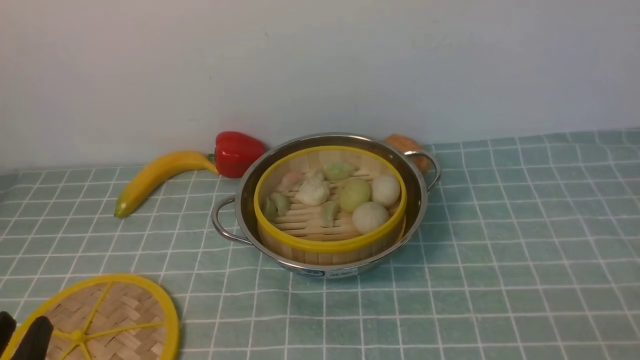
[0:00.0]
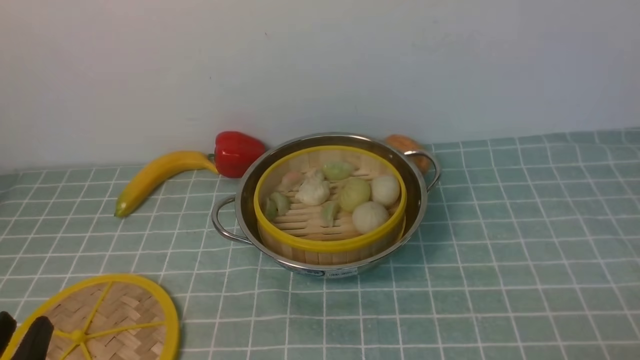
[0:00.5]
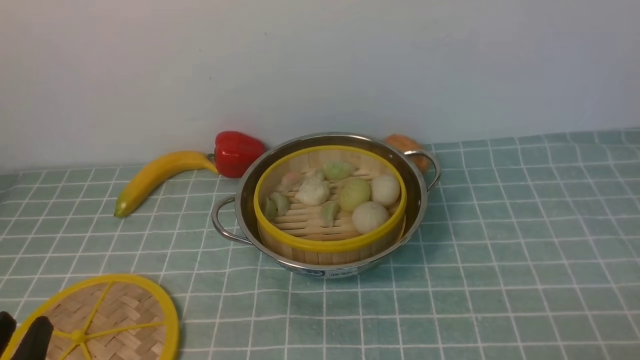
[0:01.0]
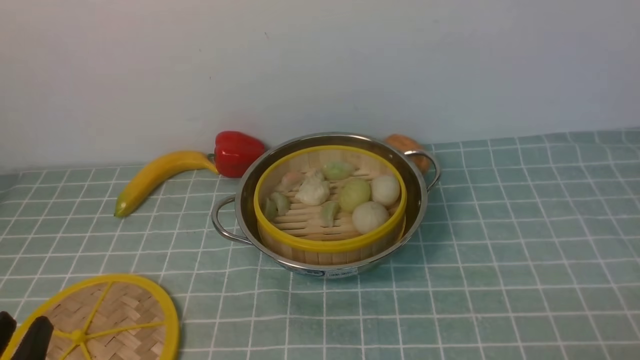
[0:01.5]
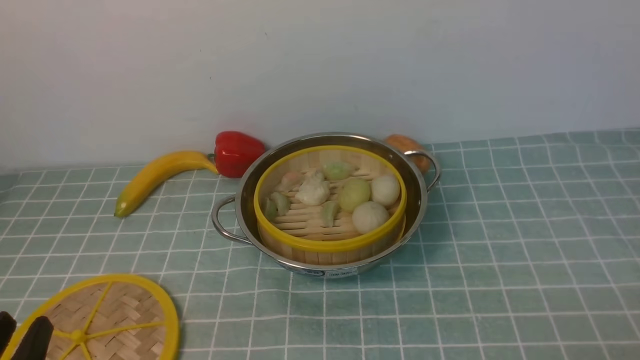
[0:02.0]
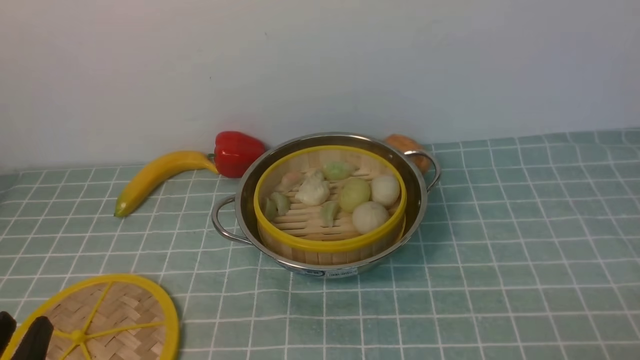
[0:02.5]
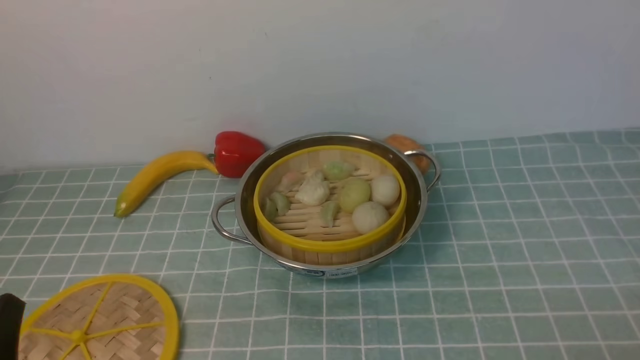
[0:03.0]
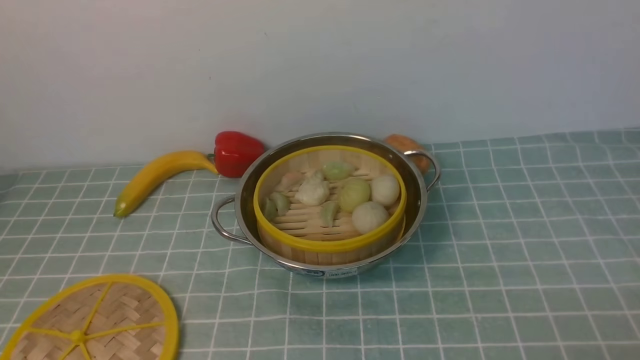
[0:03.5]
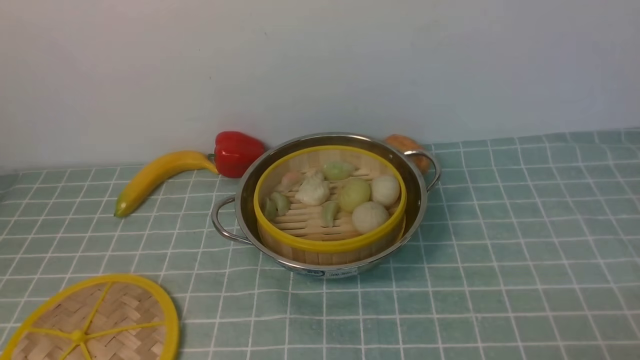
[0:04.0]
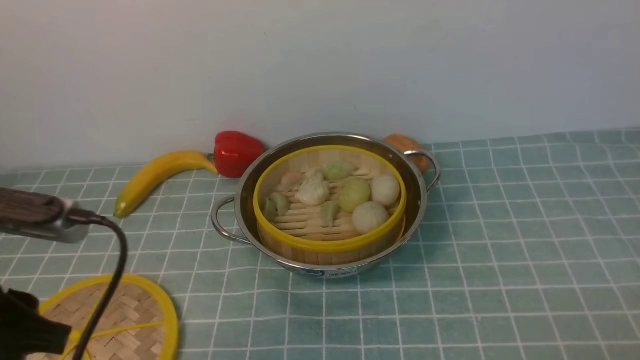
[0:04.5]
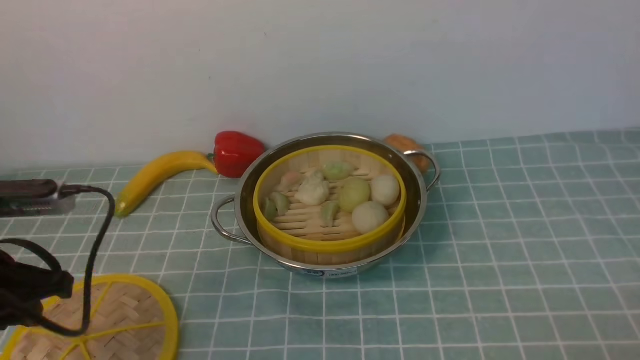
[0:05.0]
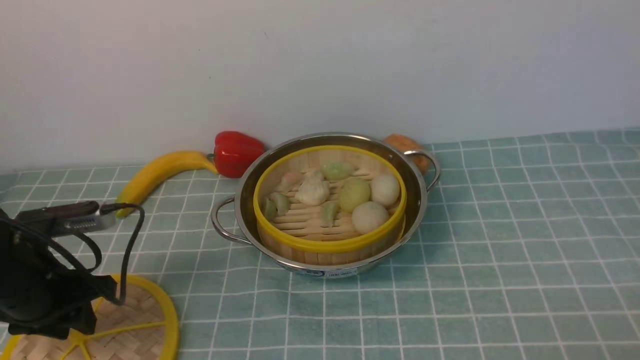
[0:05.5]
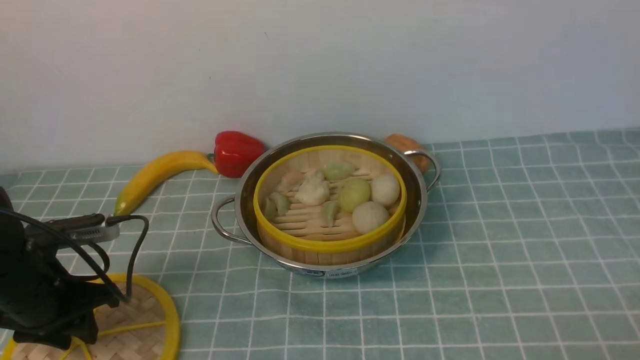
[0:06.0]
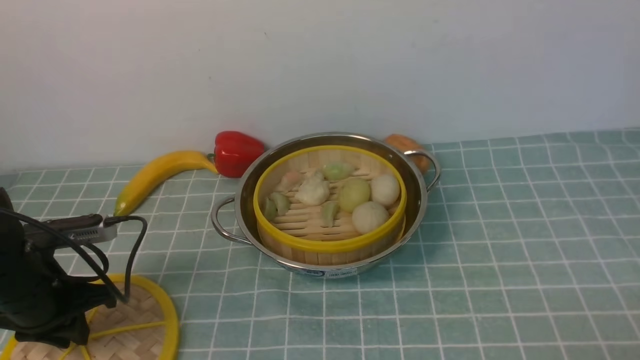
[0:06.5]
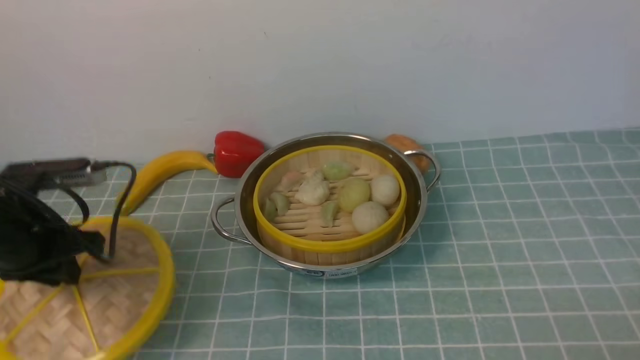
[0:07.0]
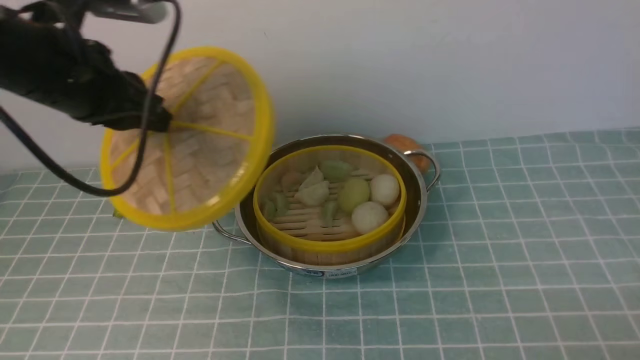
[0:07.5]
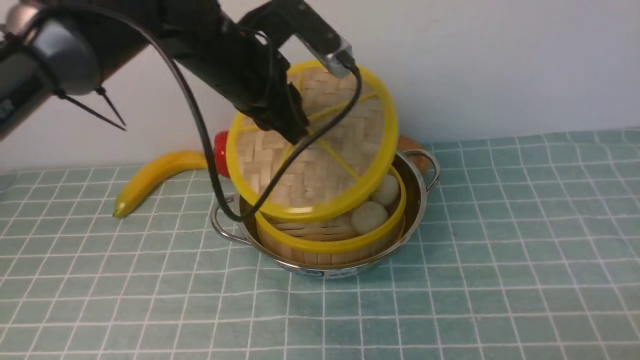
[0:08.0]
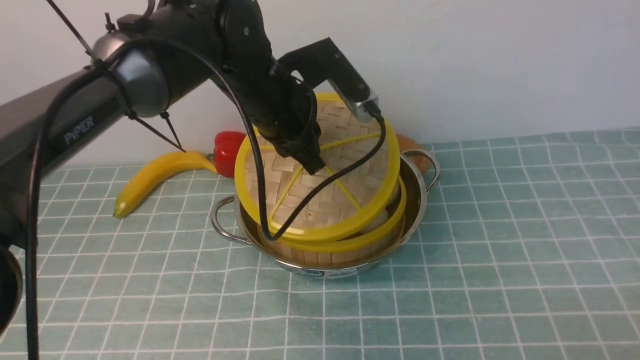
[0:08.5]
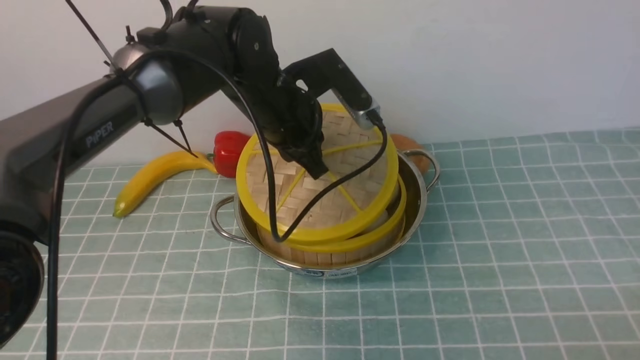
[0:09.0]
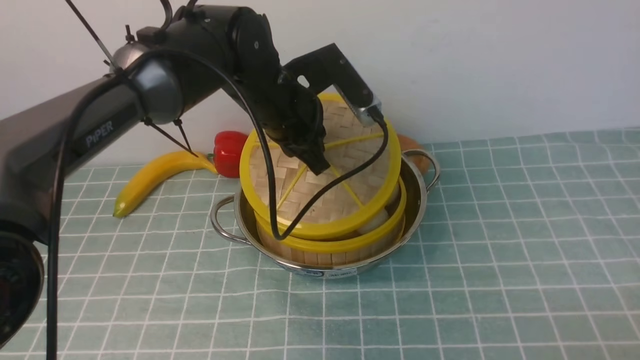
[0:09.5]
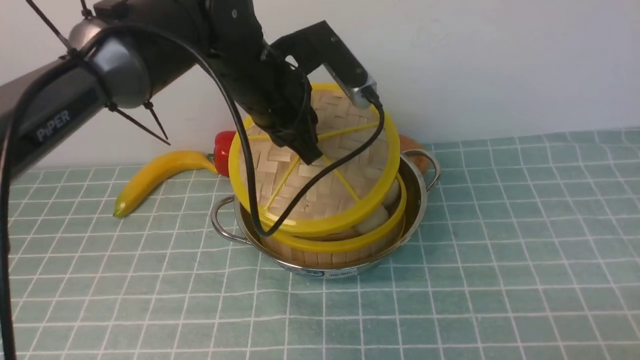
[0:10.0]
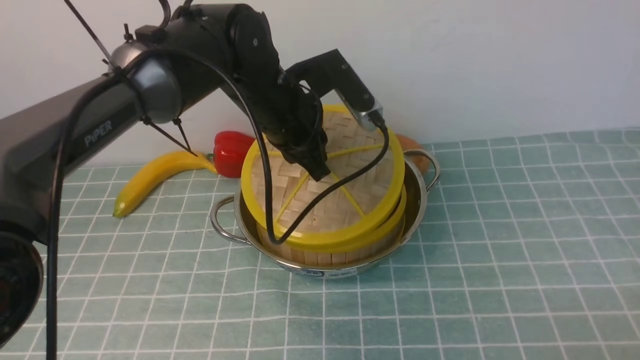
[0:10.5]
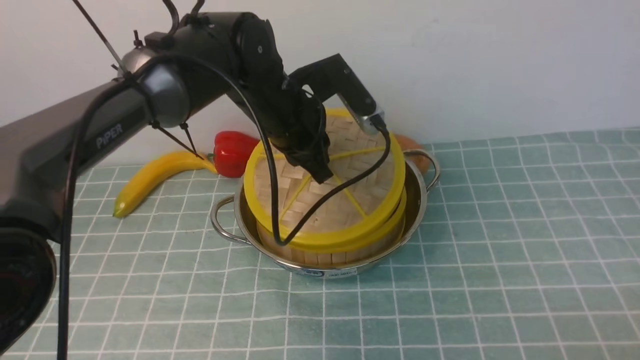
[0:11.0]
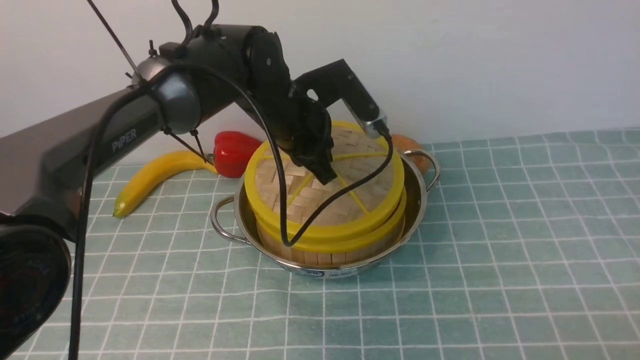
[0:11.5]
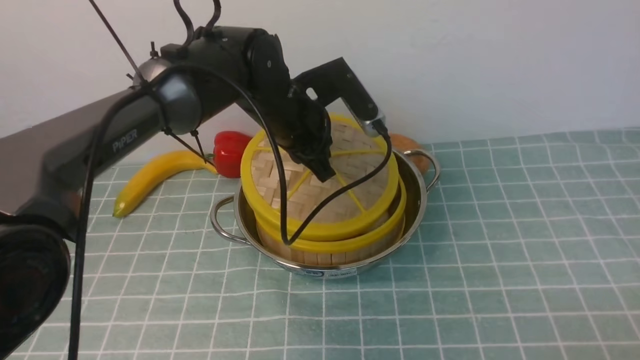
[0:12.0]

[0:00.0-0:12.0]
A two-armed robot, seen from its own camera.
Task of the whole recording: place the steamer in the pot on the blue tablecloth, and put the lid on the steamer.
Step, 0:00.0 to 0:07.0: use the left arm to lift the lid of the steamer.
0:02.0 to 0:04.0: The left gripper heads upward, covering approximately 15 cm.
0:04.0 to 0:06.0: The left gripper goes some 30 cm forward and downward.
0:06.0 to 0:08.0: The left gripper shifts about 30 cm to the right, upward and forward, and closes its fingers.
0:08.0 to 0:10.0: The left gripper shifts by some 5 cm.

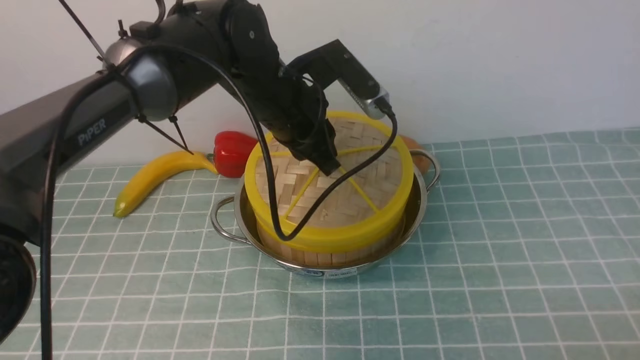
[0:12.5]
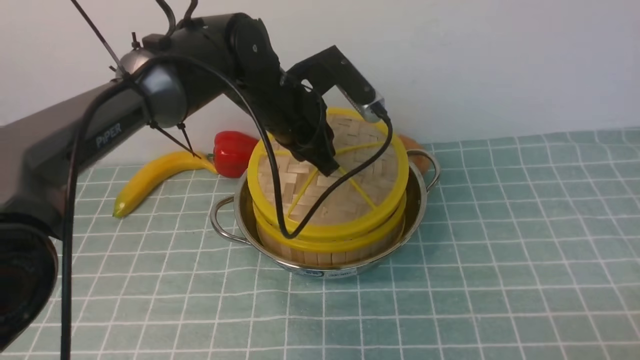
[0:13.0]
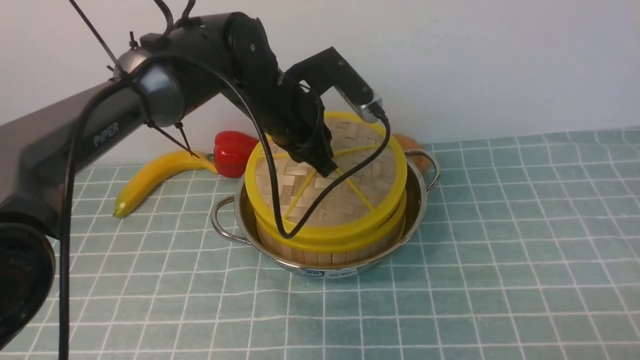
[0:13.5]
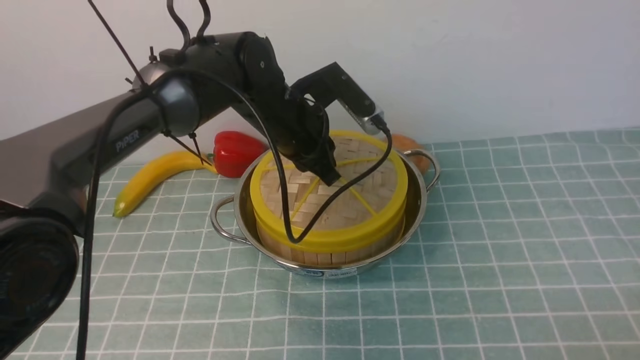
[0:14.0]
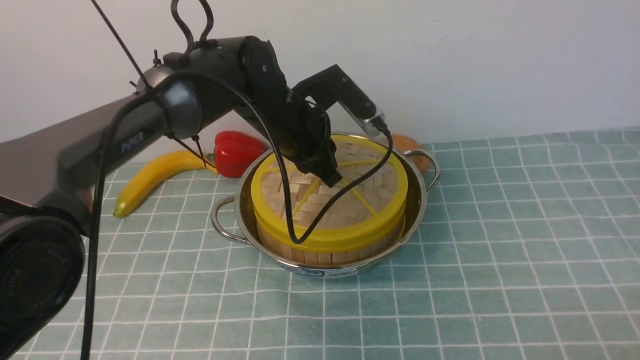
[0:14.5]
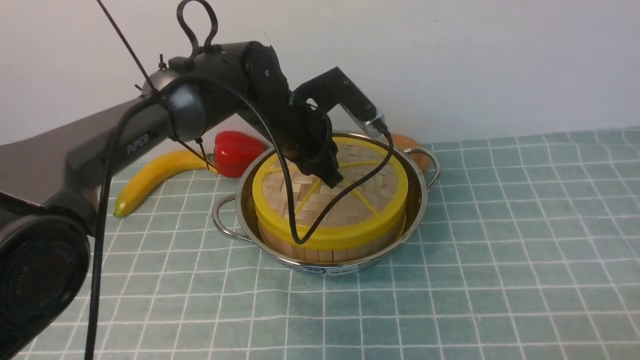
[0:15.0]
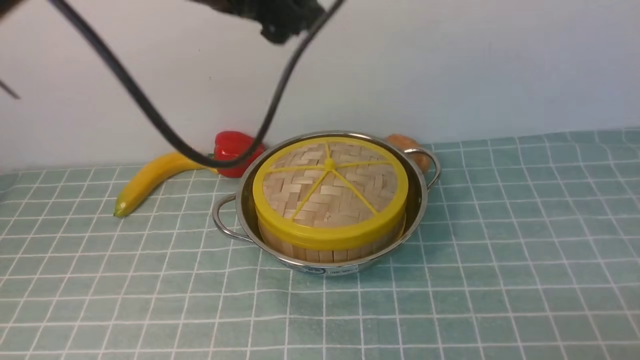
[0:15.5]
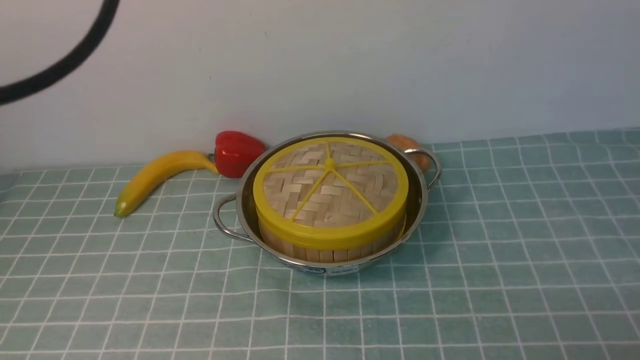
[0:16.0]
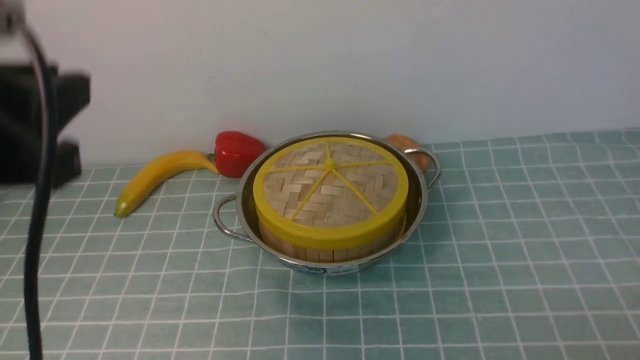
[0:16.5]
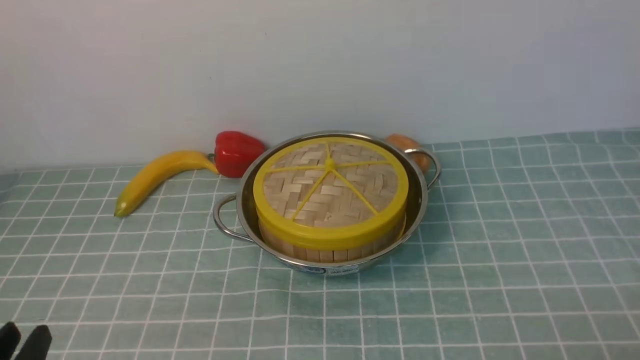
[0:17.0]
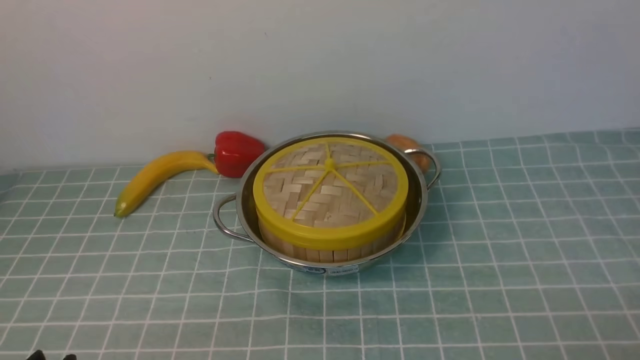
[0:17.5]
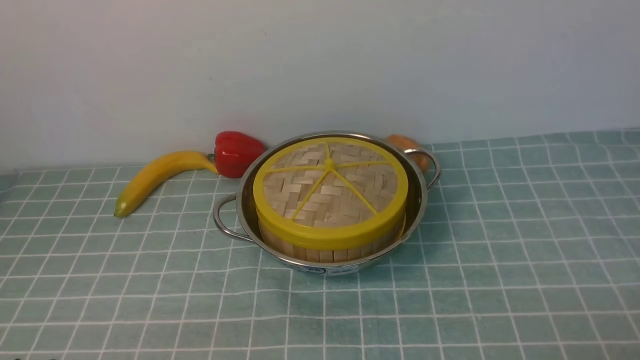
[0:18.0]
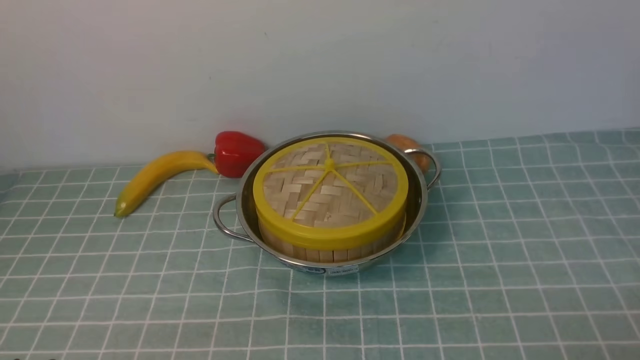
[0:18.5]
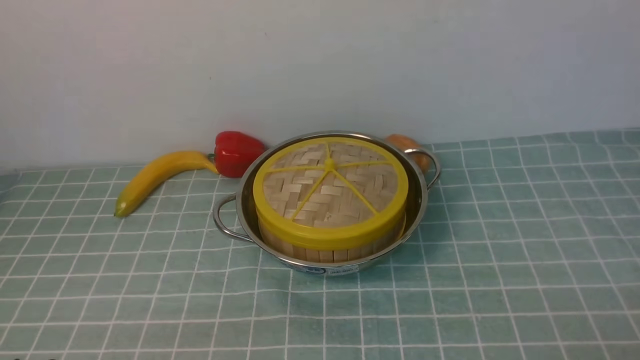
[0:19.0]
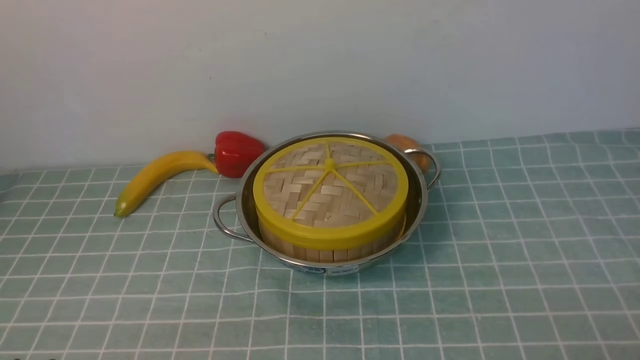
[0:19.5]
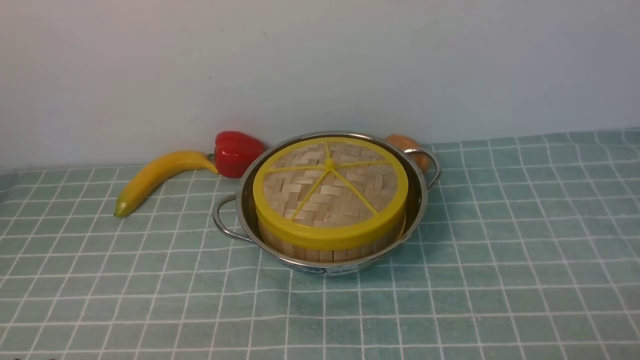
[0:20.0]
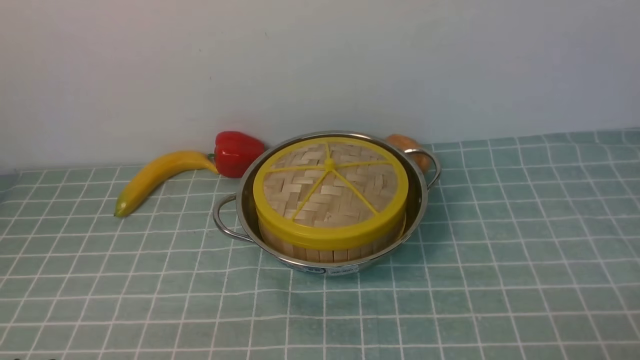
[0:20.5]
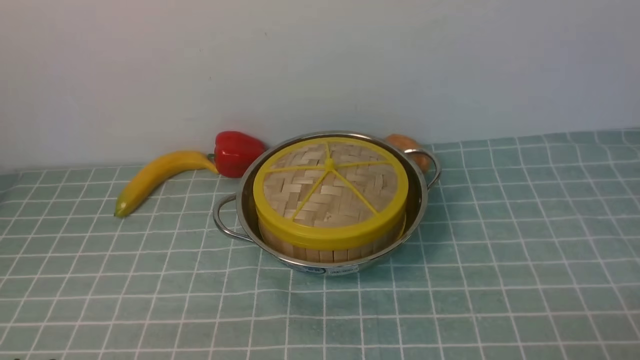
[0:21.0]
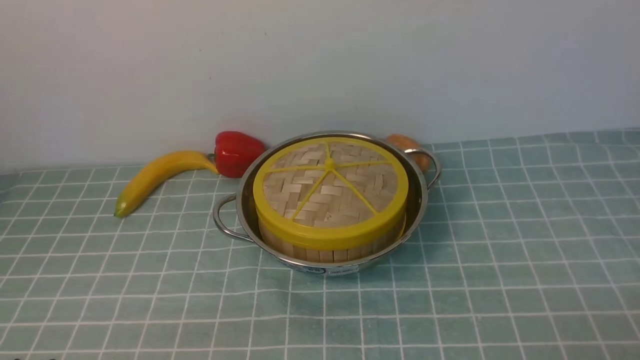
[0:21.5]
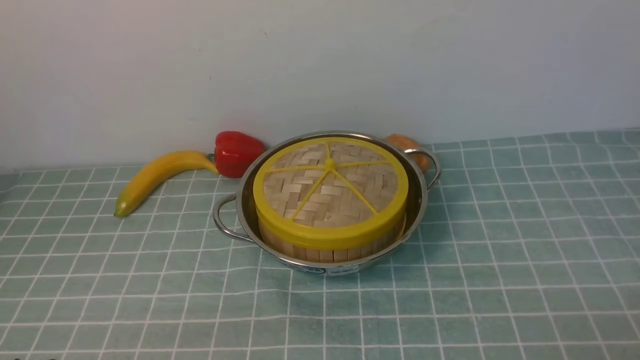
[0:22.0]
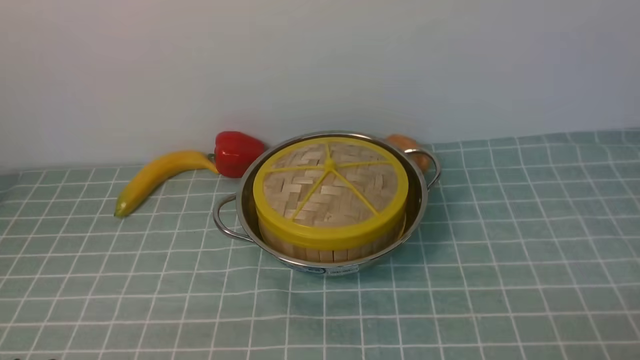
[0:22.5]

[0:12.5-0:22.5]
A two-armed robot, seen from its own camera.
Task of the whole recording: place the steamer in the pot on the blue tablecloth, and put the lid on the steamer.
Step, 0:12.5 to 0:15.5: use the left arm to place the steamer lid on the steamer.
0:14.5 to 0:16.5: The left gripper is displaced backward, upward and to the left by about 35 cm, and opens, then closes again.
0:16.5 to 0:18.5: The left gripper heads downward and backward, covering roughly 30 cm.
0:20.5 to 0:22.5: Neither gripper changes place.
